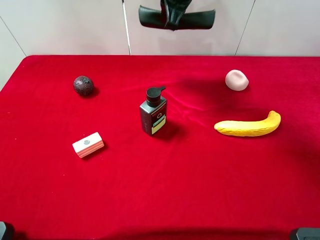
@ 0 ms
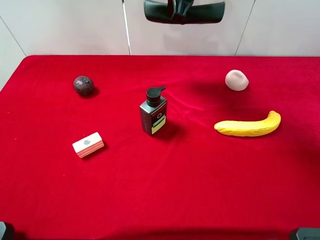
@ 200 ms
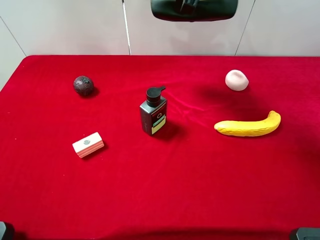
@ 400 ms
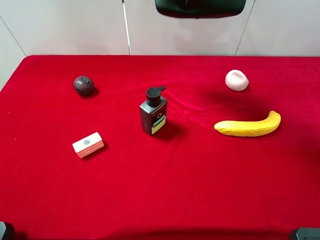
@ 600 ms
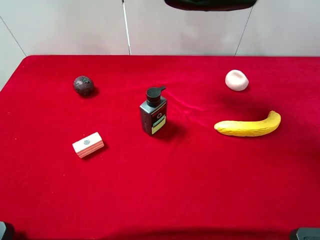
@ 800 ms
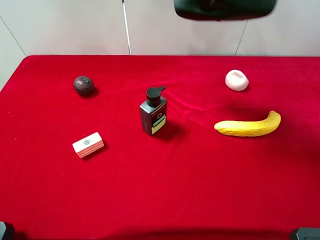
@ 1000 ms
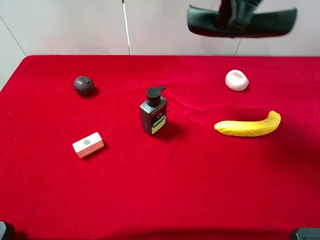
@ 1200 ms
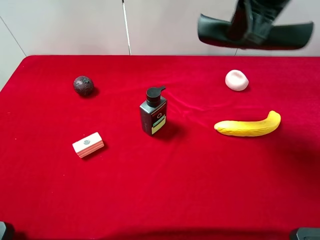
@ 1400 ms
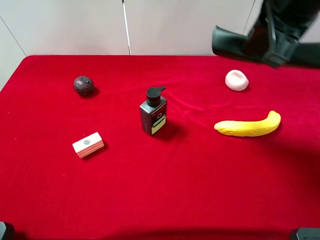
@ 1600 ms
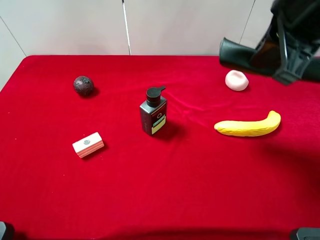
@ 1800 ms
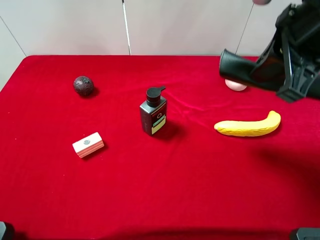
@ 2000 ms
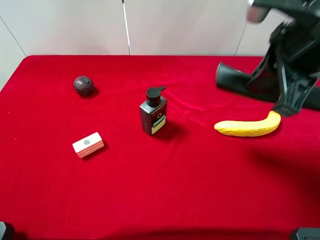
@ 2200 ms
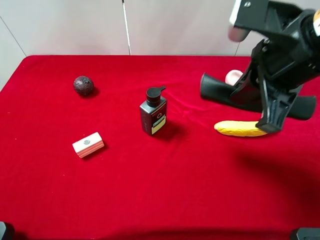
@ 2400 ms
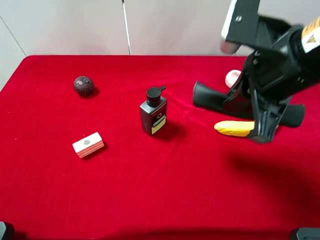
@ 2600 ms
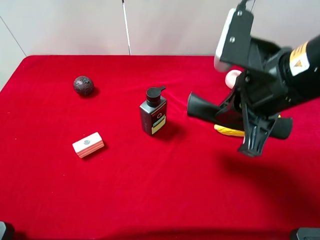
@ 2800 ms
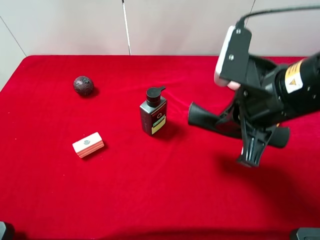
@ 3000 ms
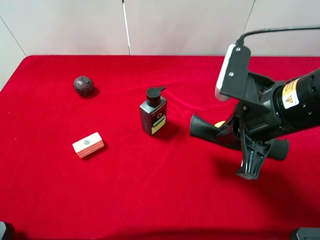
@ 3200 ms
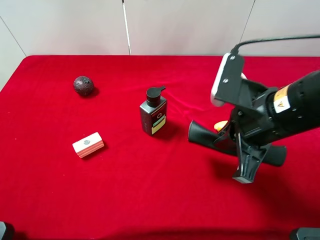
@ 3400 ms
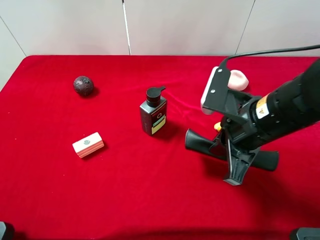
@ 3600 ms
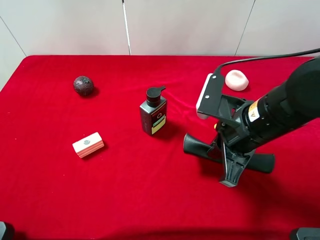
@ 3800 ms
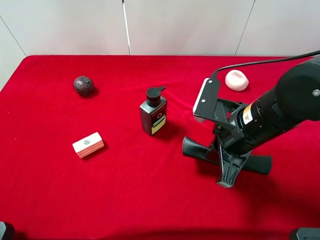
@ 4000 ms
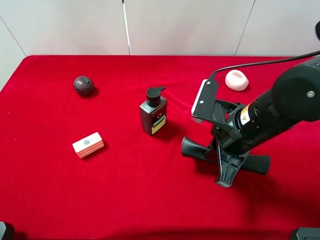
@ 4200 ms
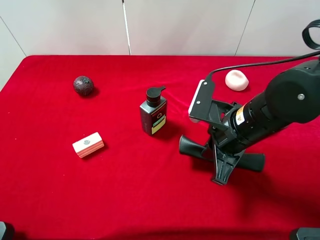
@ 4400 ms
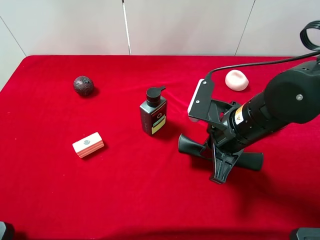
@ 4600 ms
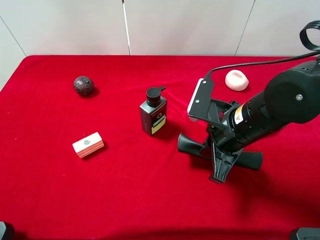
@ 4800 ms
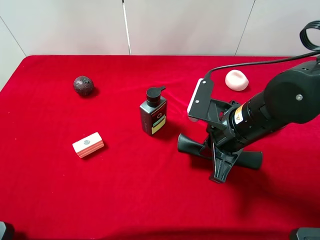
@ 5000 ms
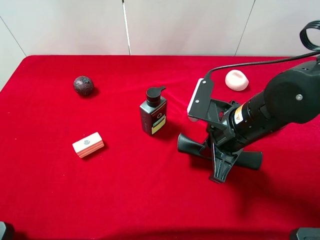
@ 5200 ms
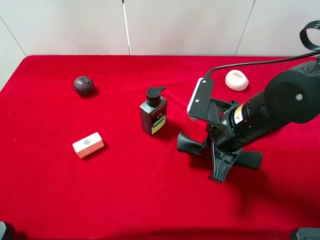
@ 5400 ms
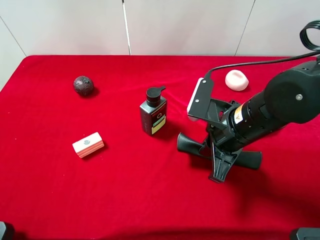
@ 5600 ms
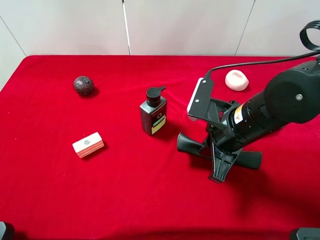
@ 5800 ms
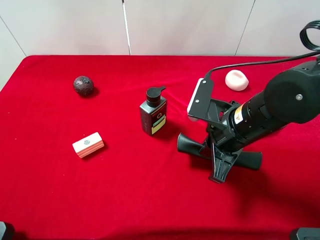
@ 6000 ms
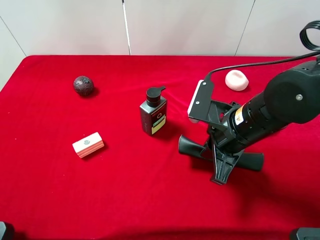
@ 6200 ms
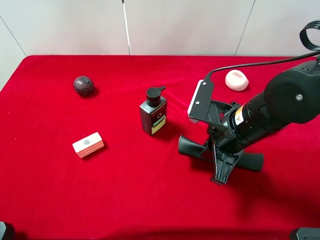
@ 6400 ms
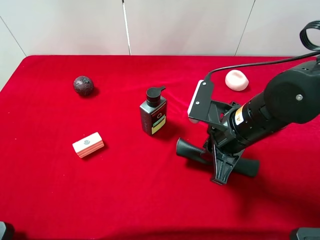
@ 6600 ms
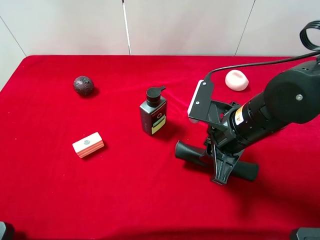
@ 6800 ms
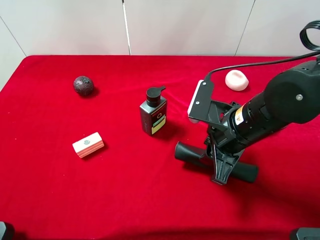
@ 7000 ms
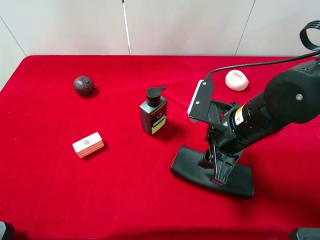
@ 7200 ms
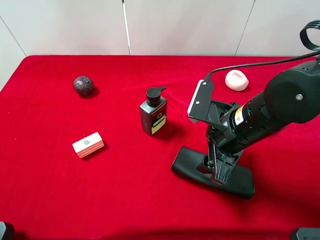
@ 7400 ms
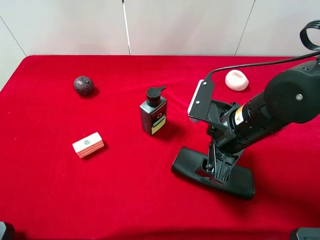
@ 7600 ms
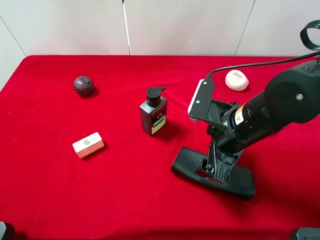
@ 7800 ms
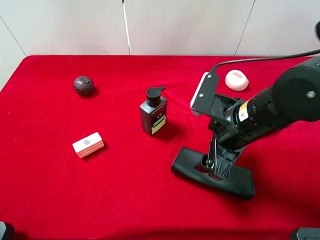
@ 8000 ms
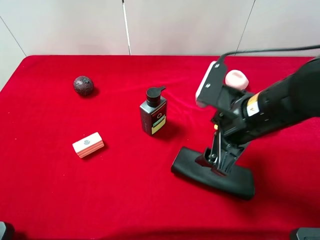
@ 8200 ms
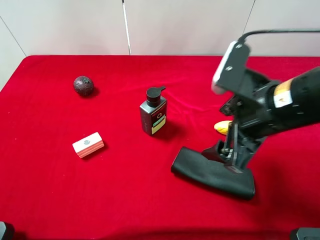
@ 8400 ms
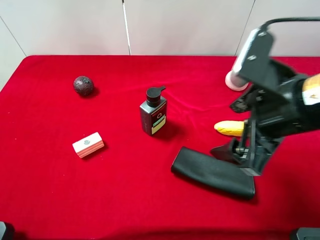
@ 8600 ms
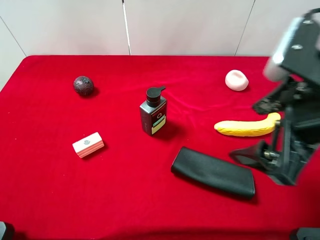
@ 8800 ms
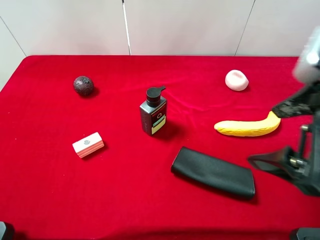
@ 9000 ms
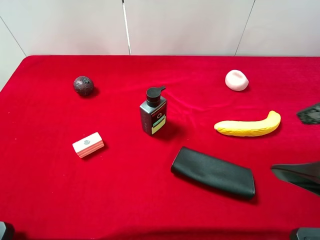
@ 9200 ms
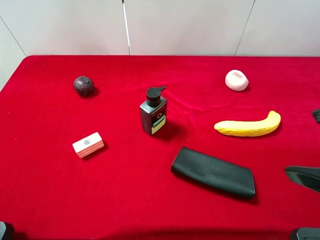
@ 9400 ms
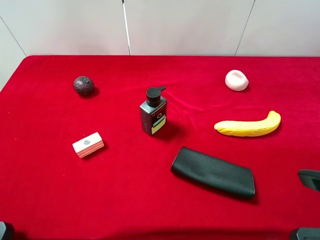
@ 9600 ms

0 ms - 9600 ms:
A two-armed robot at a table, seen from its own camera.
Task of the whole recording: the gripper move the object.
Step, 0 ms - 7600 ms: Place the eyeglass case on the table with the right gripper.
0 ms - 1600 ms: The right gripper travels backward and to the right by some 20 cm.
1600 ms - 3200 ms: The right gripper travels downward and backward by about 15 cm.
3200 ms - 4800 ms: The right gripper heads downward, covering about 5 cm.
4800 ms - 6400 ms: The two grippers keep their place.
6400 ms - 8000 ms: The right gripper opens its fingers.
8000 ms - 9600 ms: The right gripper travels backward, upward and to the right by about 20 cm.

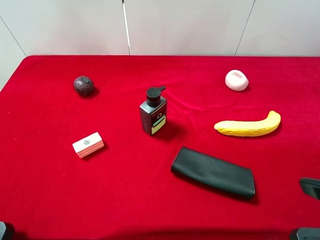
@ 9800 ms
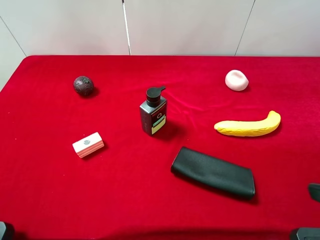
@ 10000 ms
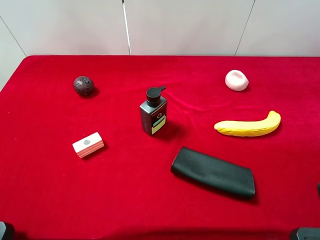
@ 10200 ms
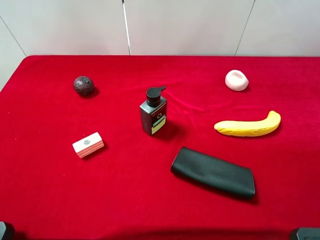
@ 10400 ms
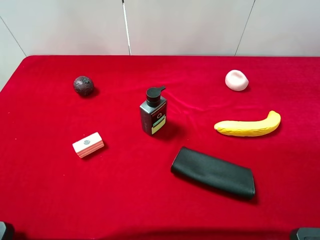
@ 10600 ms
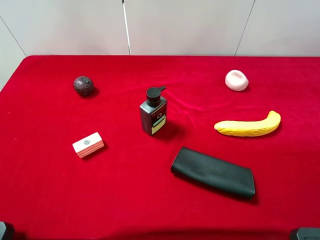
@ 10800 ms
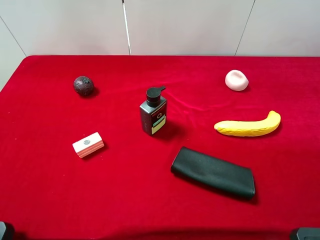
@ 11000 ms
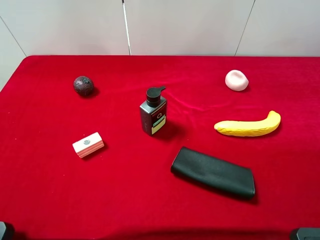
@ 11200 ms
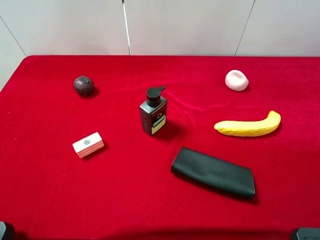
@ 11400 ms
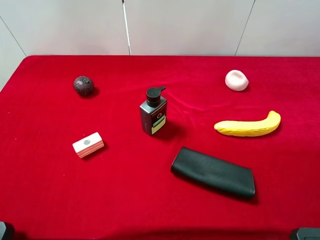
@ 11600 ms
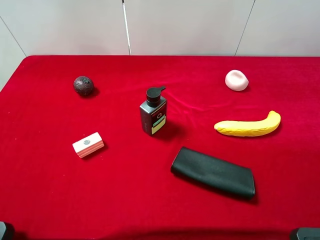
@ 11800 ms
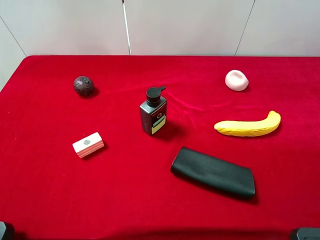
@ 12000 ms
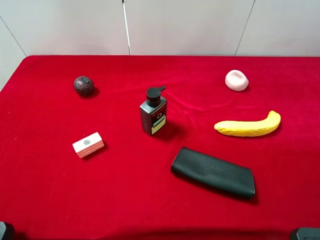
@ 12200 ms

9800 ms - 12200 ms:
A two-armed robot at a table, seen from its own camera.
Task of the whole recording: the gripper move the object.
11000 ms - 12200 ms: Both grippers stay put.
